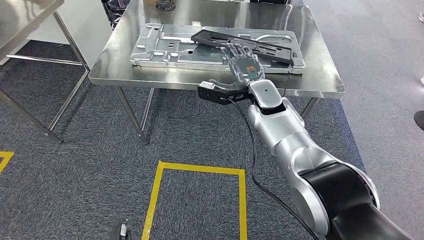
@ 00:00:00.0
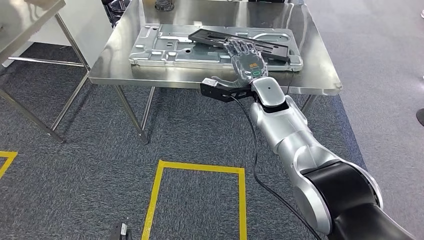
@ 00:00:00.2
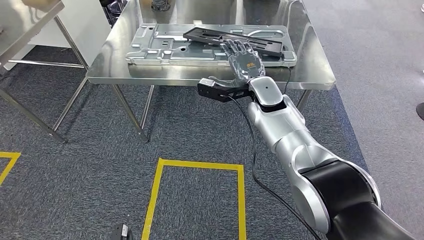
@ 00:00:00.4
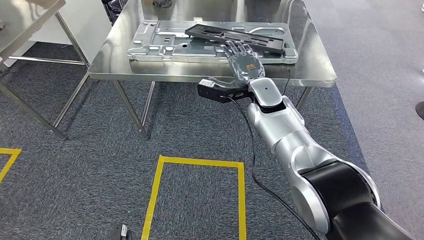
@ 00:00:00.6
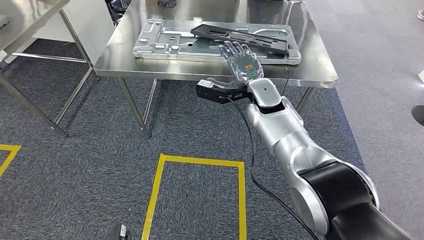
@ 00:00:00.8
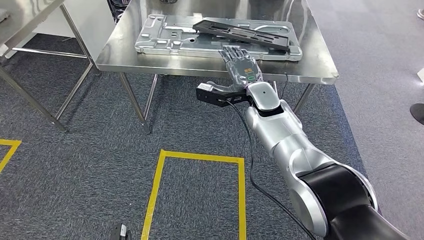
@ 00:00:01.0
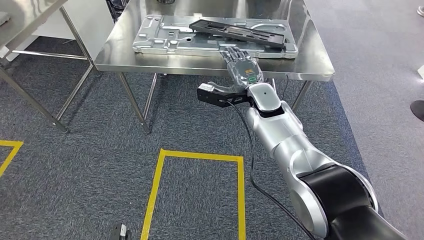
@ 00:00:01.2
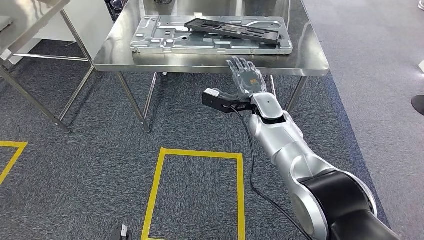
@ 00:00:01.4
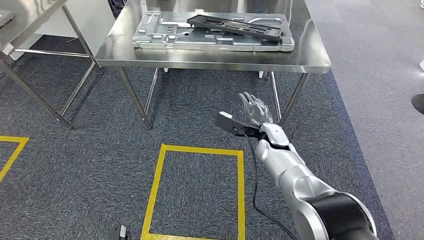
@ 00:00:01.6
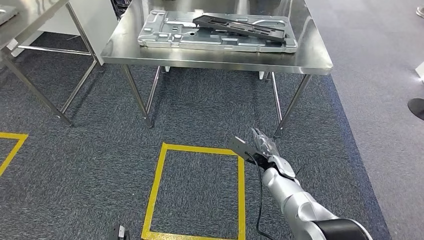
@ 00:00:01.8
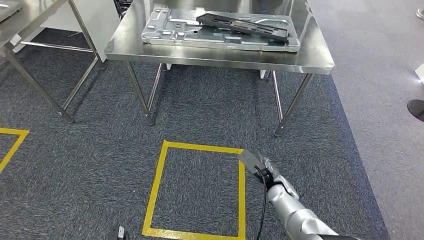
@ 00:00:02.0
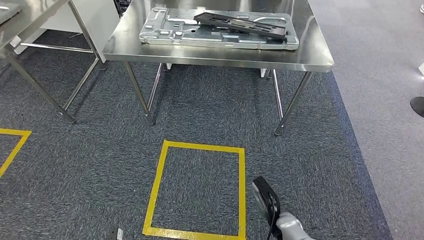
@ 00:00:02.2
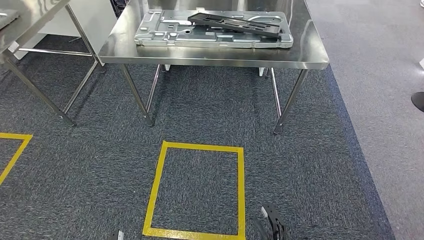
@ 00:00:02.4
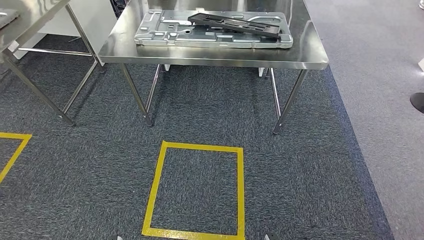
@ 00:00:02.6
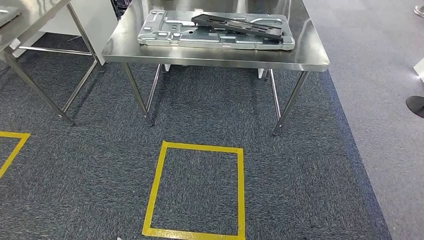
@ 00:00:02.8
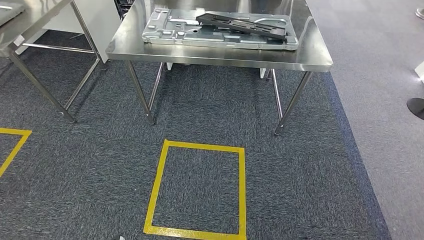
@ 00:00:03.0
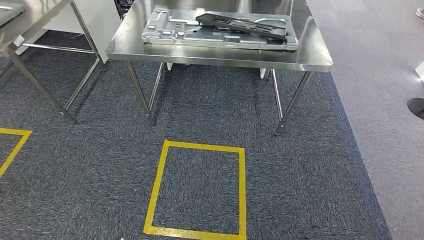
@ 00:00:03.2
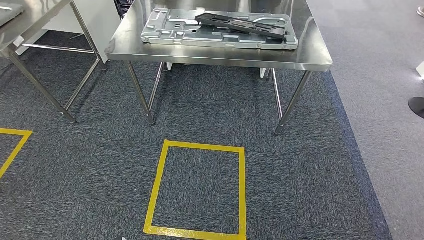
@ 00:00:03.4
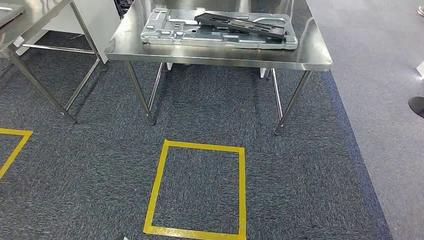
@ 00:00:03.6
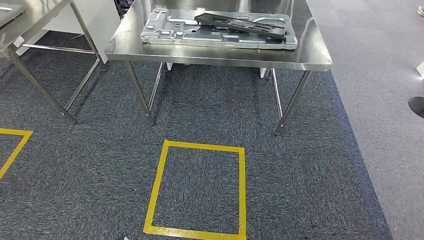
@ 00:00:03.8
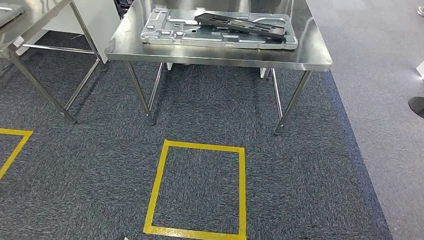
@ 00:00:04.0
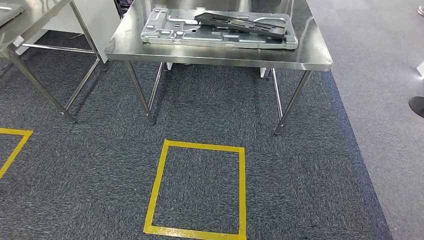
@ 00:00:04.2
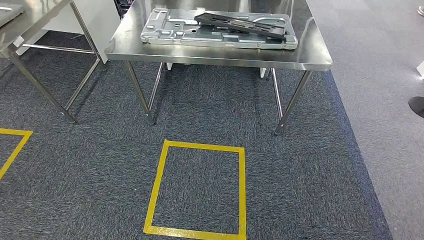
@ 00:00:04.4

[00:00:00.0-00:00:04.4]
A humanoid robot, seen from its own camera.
Step, 00:00:00.0 to 00:00:04.4: Return to the initial position at the workbench.
00:00:03.0 to 00:00:04.4: The hands make only small movements.
